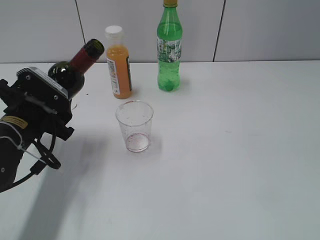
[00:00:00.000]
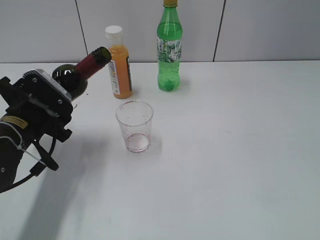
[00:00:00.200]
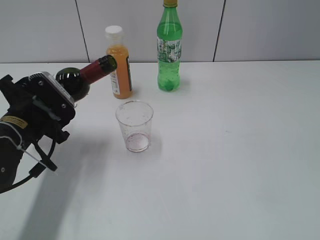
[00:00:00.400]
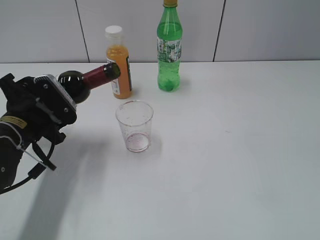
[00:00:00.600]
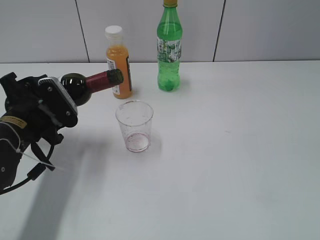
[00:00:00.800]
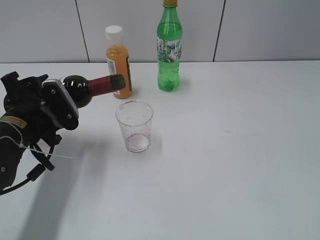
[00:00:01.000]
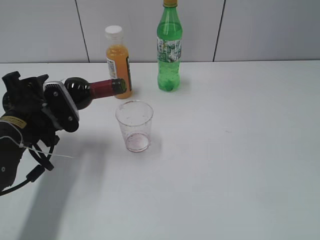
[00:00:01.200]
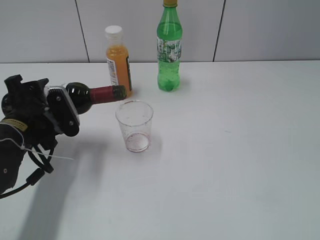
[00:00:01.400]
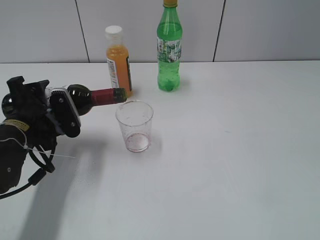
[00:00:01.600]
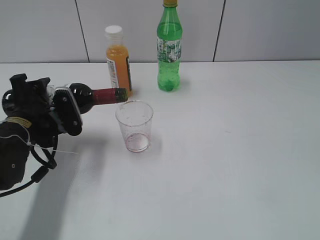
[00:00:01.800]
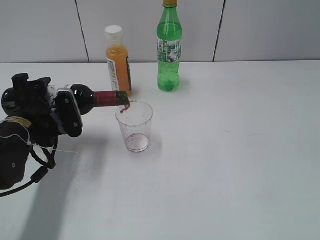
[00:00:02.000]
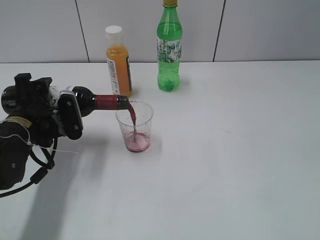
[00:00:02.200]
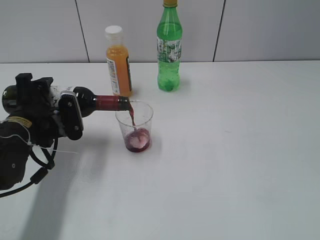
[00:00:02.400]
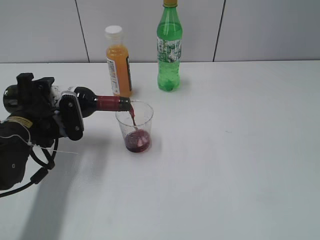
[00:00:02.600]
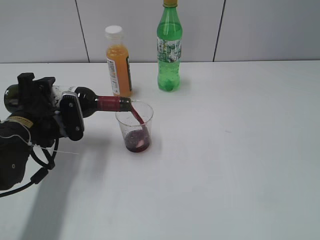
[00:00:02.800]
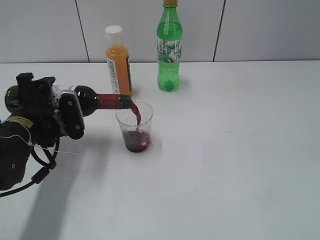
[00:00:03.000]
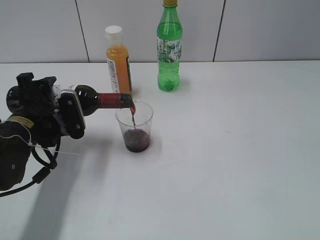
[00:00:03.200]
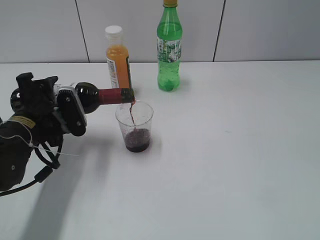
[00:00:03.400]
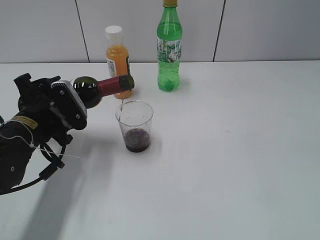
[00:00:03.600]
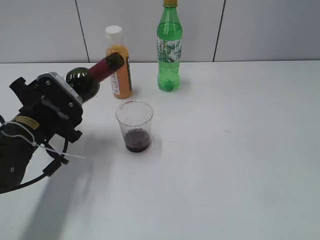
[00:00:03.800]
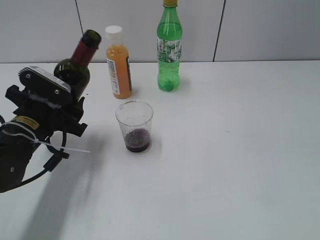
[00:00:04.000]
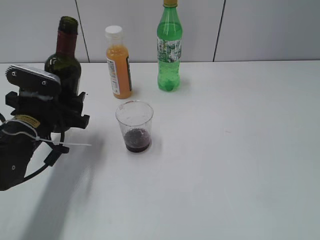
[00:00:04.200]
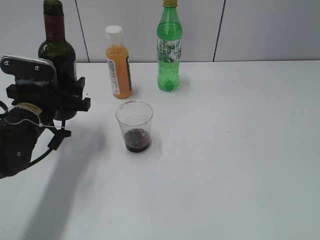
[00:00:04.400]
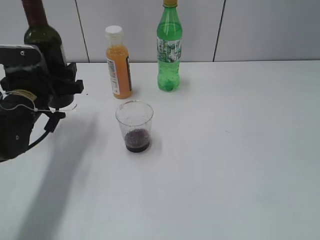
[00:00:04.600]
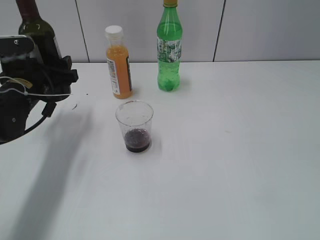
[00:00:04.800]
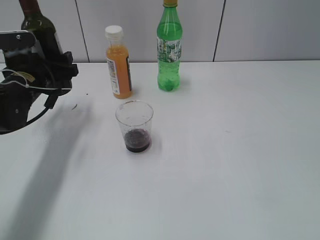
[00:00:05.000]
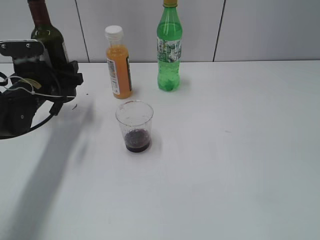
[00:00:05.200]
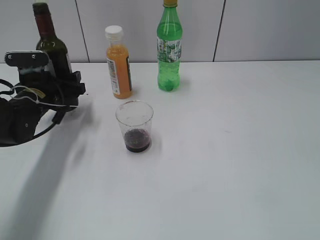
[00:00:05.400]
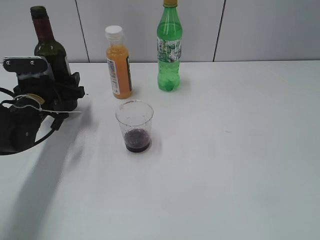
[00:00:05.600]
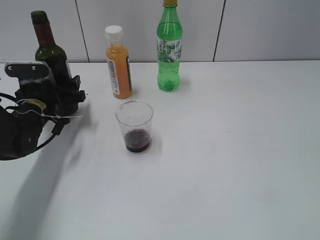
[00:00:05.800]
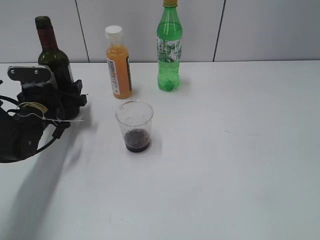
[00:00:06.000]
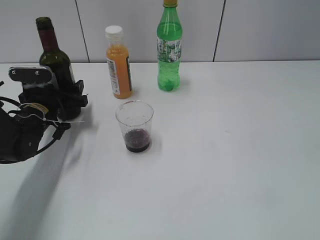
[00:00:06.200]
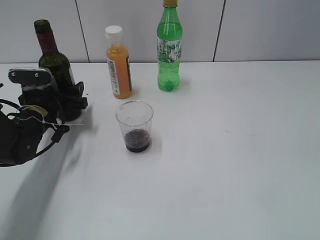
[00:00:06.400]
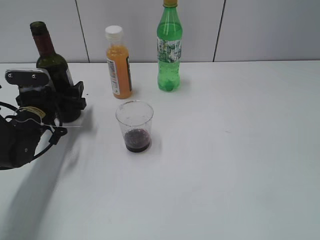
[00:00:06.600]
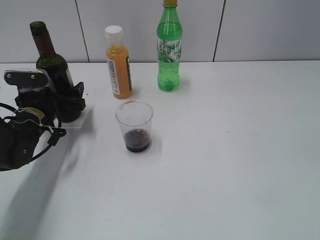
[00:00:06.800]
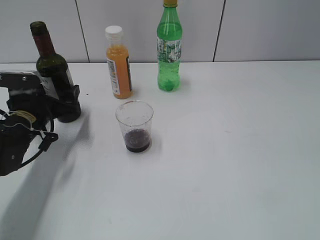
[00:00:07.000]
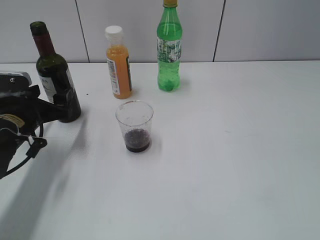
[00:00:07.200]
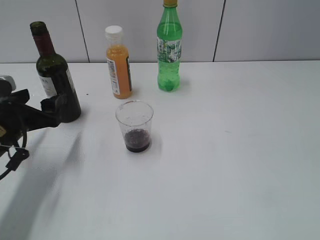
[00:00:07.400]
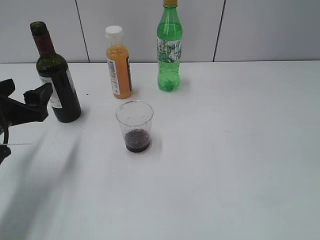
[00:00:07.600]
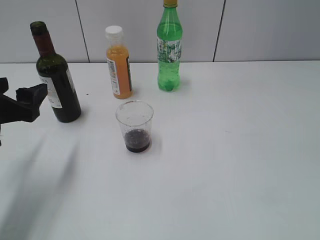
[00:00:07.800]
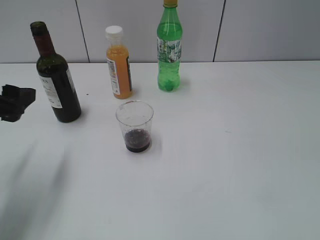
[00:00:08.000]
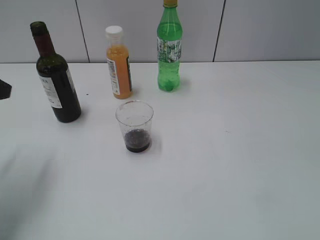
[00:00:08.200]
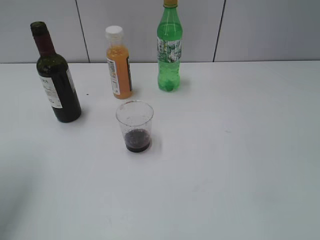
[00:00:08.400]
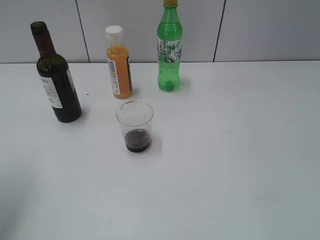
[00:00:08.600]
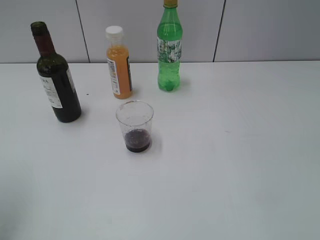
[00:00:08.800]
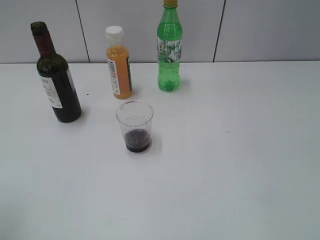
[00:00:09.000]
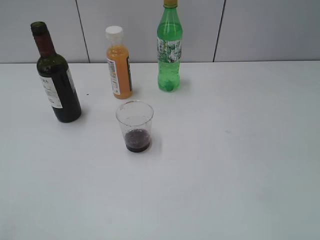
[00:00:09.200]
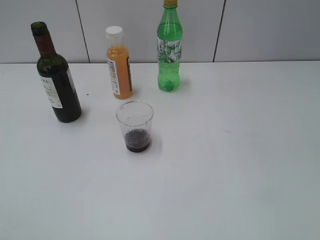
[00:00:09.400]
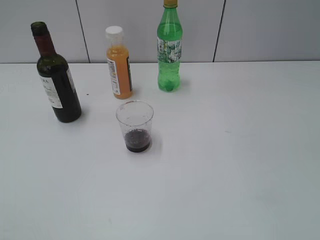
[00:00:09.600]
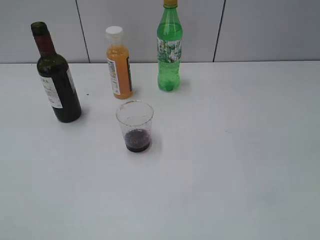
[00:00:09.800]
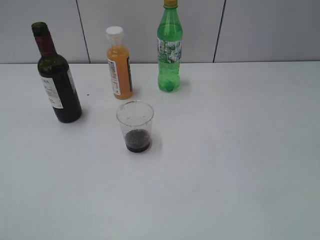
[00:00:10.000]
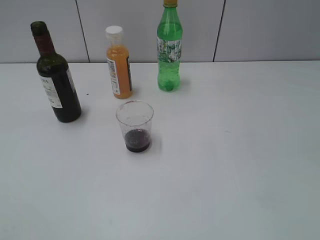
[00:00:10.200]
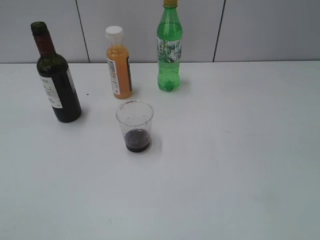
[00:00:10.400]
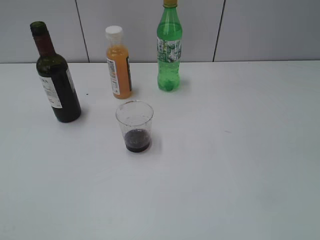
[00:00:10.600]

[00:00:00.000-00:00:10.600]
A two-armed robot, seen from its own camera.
Step, 00:00:00.000 to 00:00:03.600: Pour the red wine from bottle to cup with left gripper.
Step, 00:00:03.800 to 00:00:07.200: Place the red wine bottle on the table with left gripper.
00:00:01.600 to 00:00:03.000: There are only small adjustments of the grippers.
00:00:04.600 to 00:00:06.000: The left gripper goes some 5 cm downward.
00:00:06.000 to 00:00:07.600: The left gripper heads backward and upward, covering some 15 cm, and opens up.
00:00:07.600 to 00:00:09.000: The left gripper heads upward and backward, covering about 25 cm, and closes.
